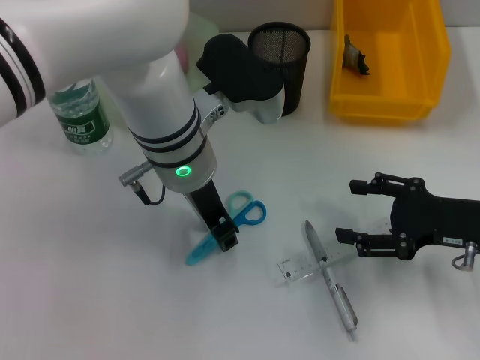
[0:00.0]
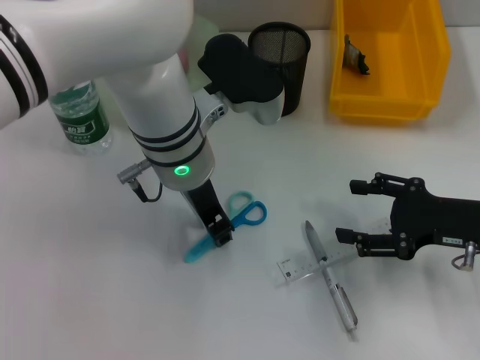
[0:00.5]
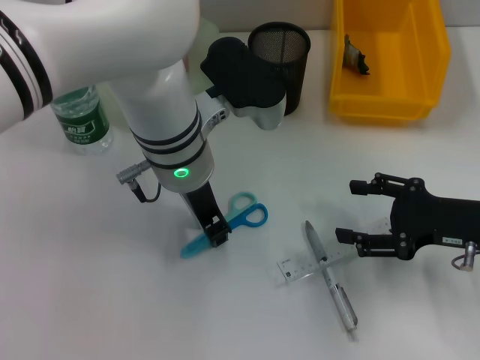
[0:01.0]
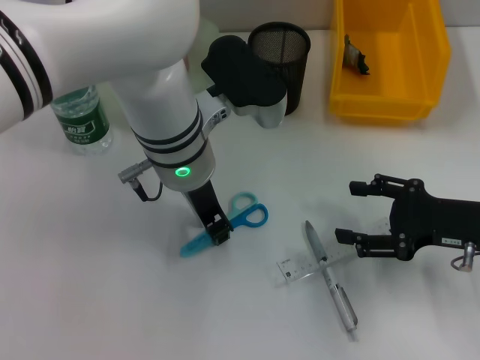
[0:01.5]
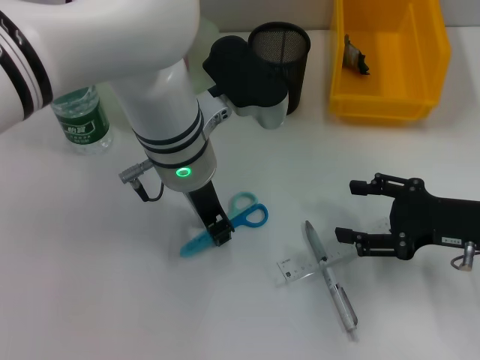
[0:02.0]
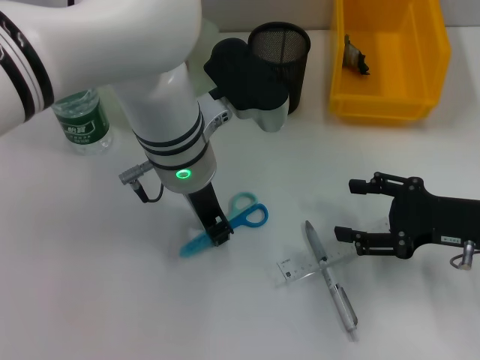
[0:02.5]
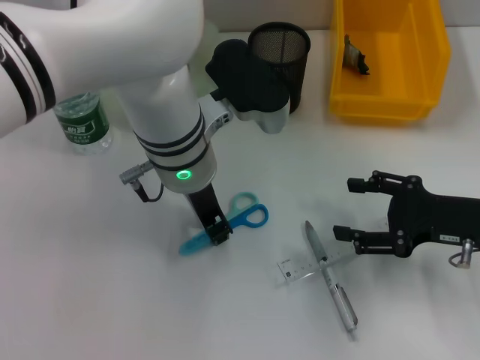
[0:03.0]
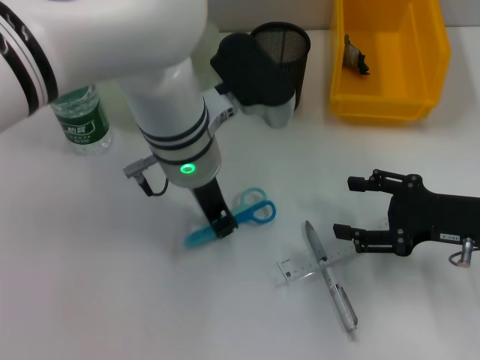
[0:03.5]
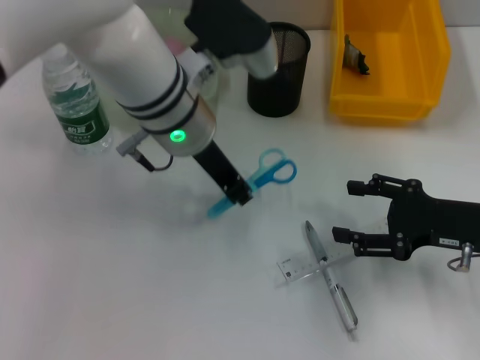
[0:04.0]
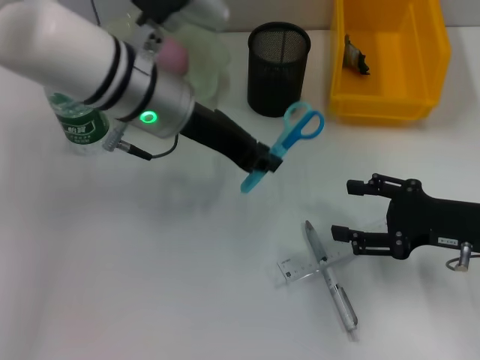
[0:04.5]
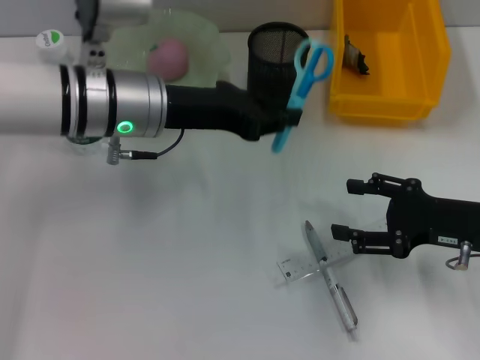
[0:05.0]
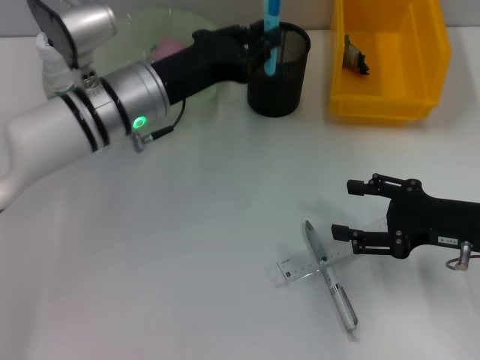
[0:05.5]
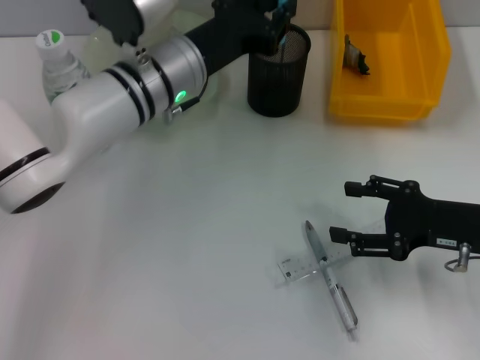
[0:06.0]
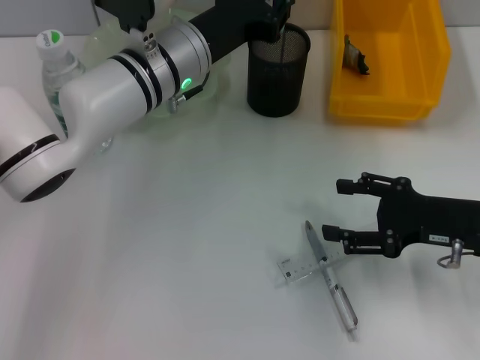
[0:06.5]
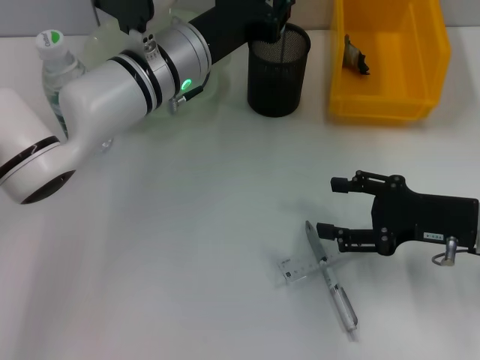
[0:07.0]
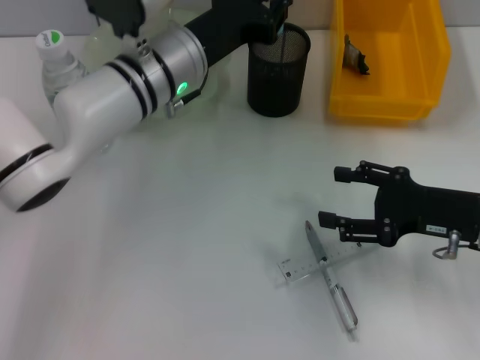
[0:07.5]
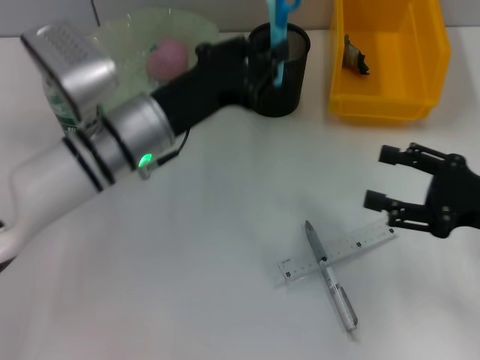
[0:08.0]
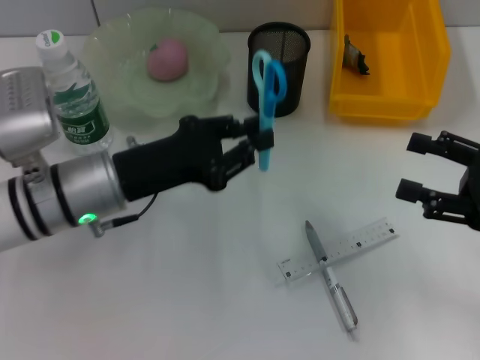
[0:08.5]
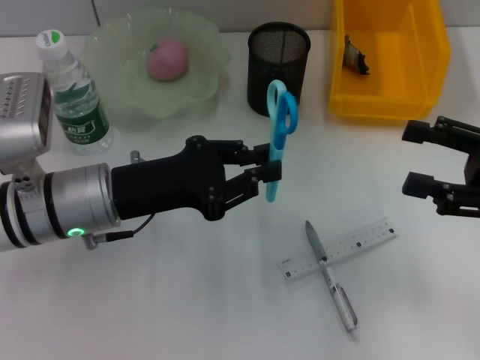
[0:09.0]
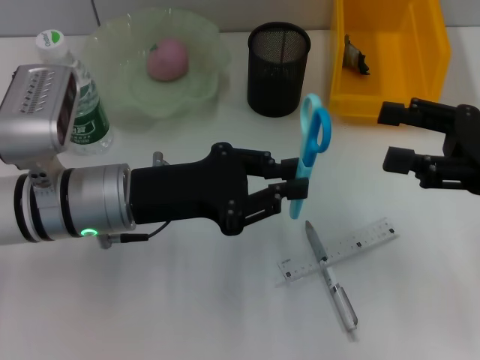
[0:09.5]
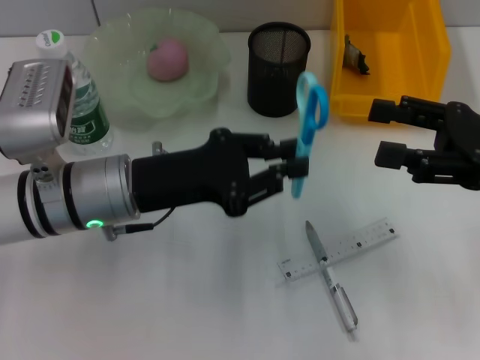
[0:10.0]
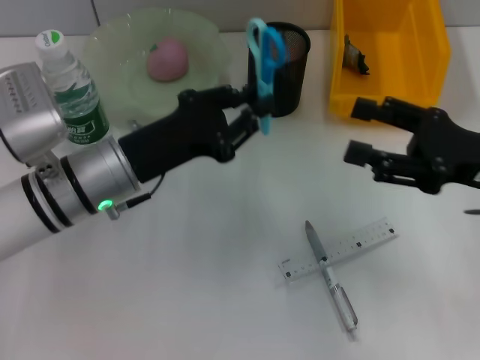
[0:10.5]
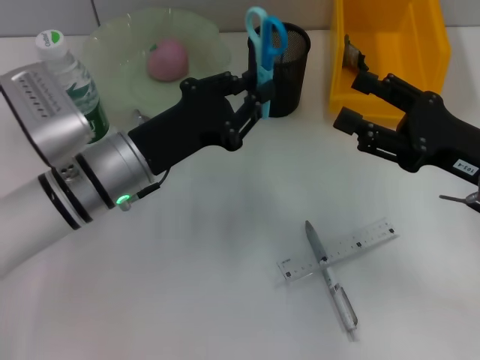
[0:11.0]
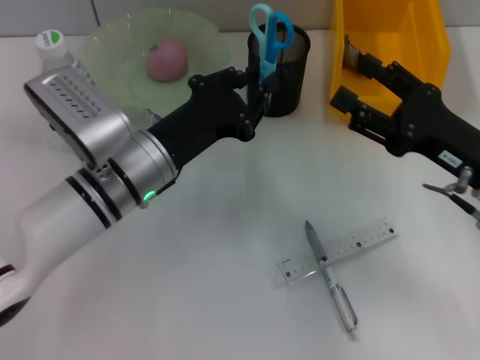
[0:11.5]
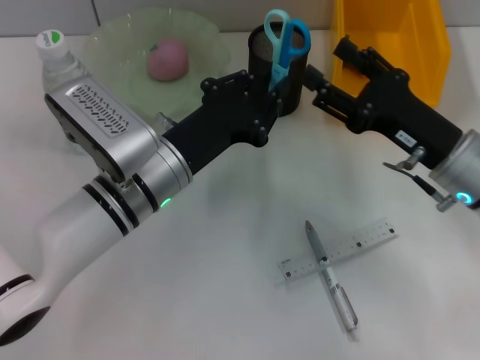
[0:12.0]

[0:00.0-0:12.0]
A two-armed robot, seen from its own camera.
Step, 0:00.0 to 0:03.0: Grab the blue scissors with the left hand.
0:00.0 to 0:02.0: Both grippers stay put.
0:02.0 to 0:04.0: The grippers move only a little.
0:04.0 to 0:06.0: The left gripper moves about 5 cm.
0:06.0 to 0:08.0: The left gripper goes approximately 5 cm backward.
0:08.0 to 0:10.0: The right gripper travels upward by about 5 cm, while the left gripper changes place by approximately 5 cm.
0:10.0 to 0:12.0: The right gripper goes approximately 10 cm to the left and downward, while the left gripper ends up about 5 cm from where it was.

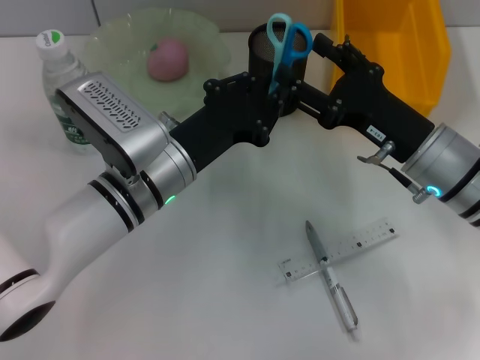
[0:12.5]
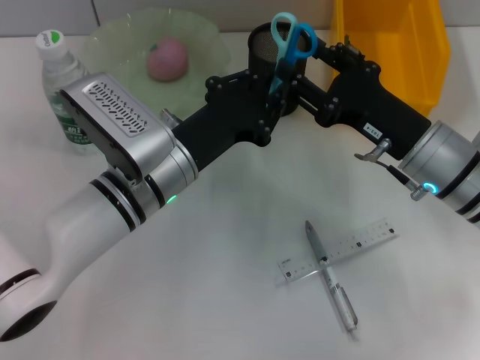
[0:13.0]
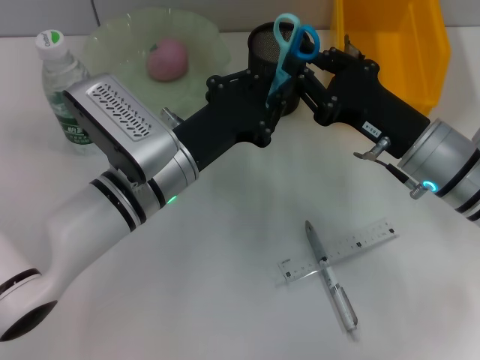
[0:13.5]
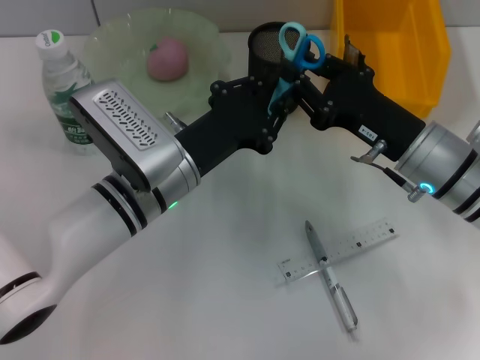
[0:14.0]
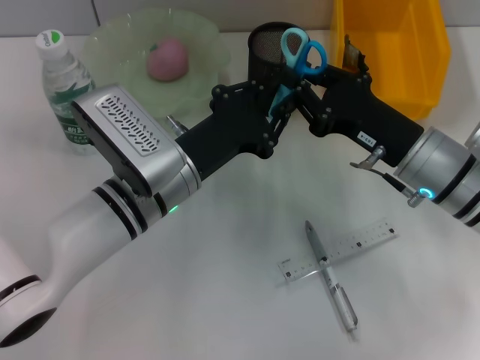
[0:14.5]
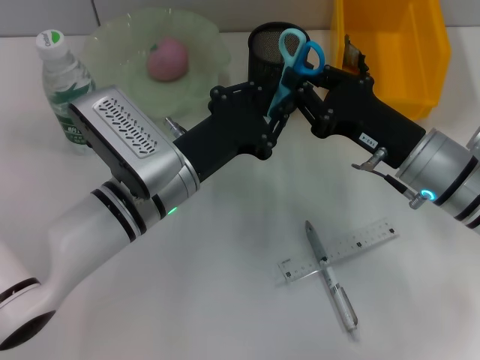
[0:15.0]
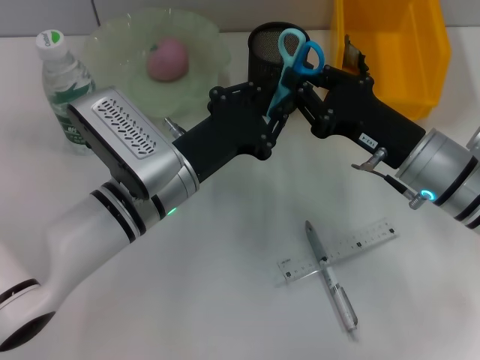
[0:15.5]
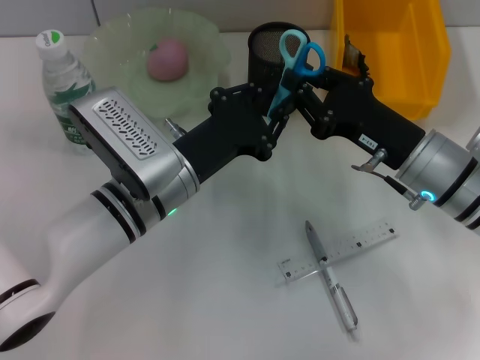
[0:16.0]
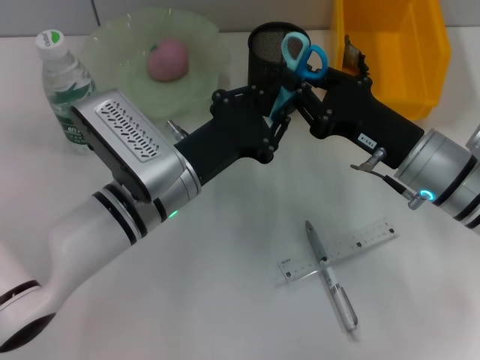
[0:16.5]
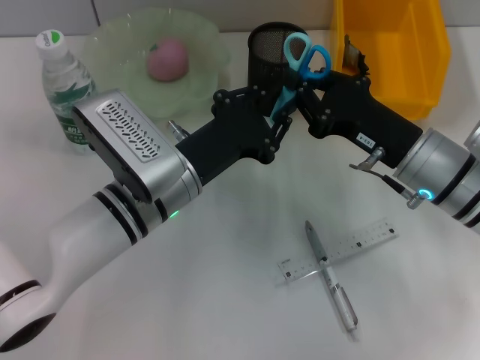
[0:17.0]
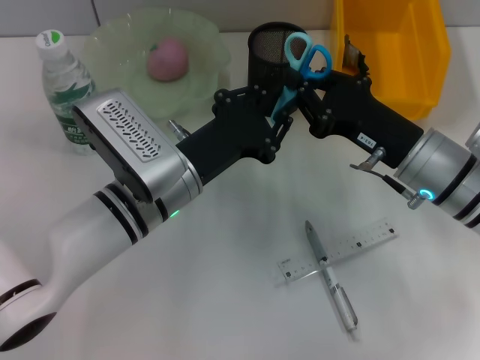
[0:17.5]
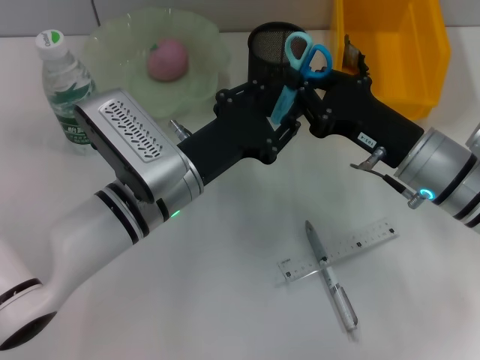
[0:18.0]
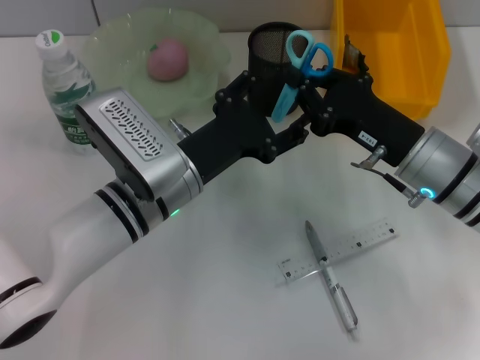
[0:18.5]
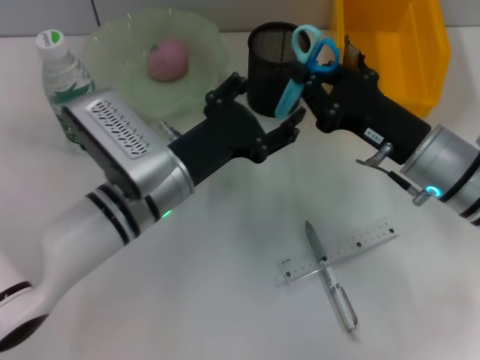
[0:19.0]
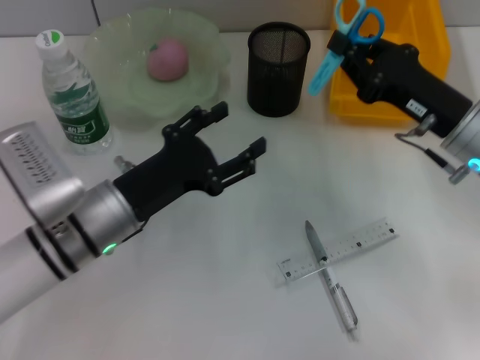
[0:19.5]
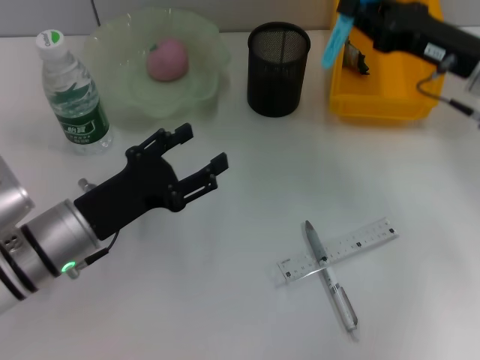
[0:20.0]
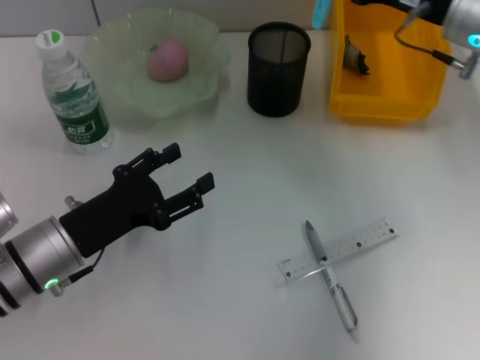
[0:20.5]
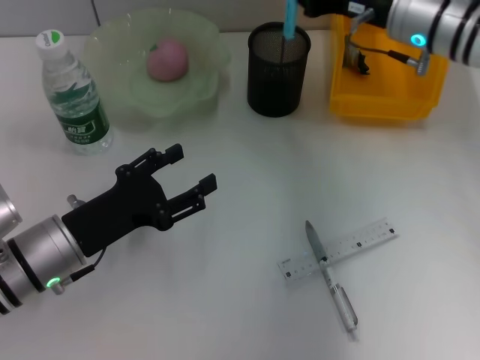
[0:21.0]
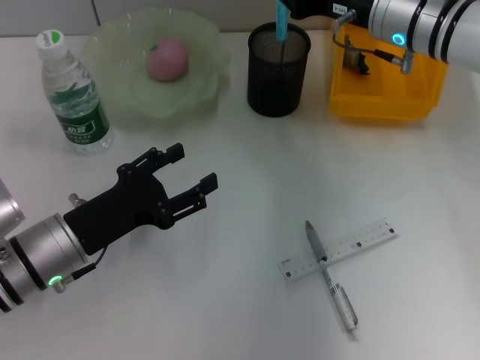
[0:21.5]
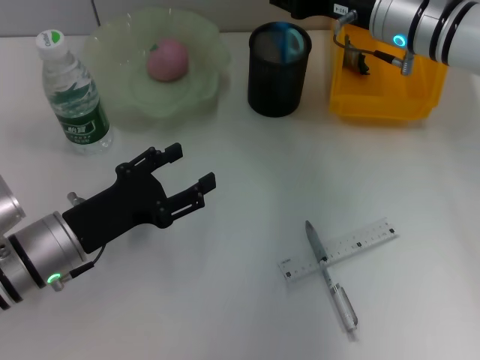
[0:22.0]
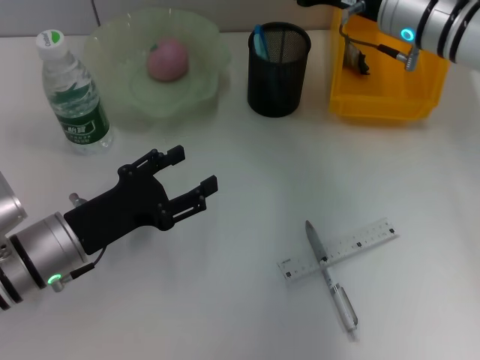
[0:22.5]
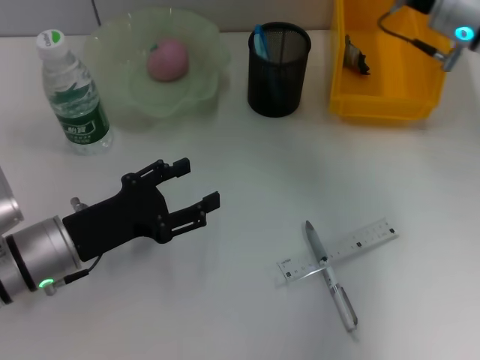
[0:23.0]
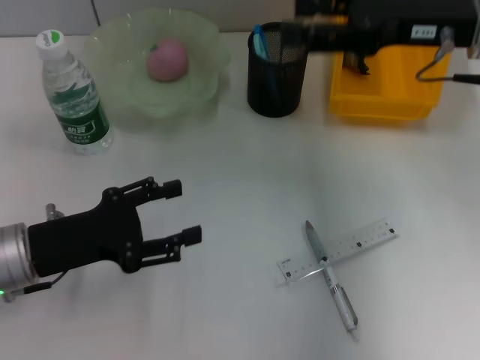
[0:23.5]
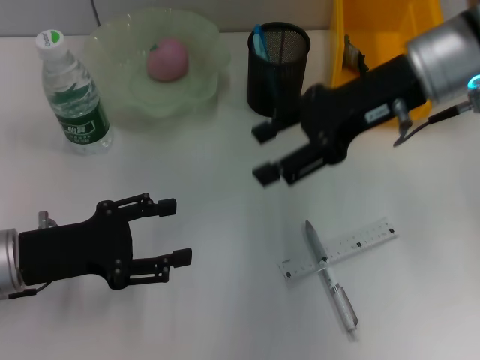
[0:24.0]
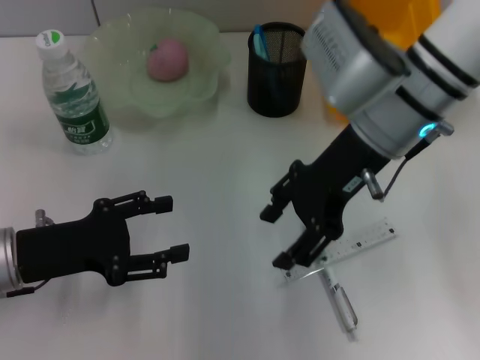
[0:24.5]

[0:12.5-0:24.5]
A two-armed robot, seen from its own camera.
Step, 0:12.5 to 0:18.0: Pass the blue scissors from the left hand to the right hand.
Step, 0:18.5 to 0:22.0: Place the blue scissors into the pen holder with the right hand.
0:12.5 to 0:14.5: The right gripper closes.
0:14.5 to 0:16.5: The two grippers keep their place.
0:16.5 to 0:18.5: The left gripper opens.
0:18.5 to 0:20.5: The left gripper travels to the left and backward by roughly 15 cm; the right gripper moves forward and upward, about 15 cm.
0:20.5 to 0:22.5: The right gripper changes place by about 5 cm, and opens.
0:22.5 to 0:24.5: The right gripper travels backward and to the left by some 10 cm. Meanwhile the left gripper ends up approximately 5 cm from where it was.

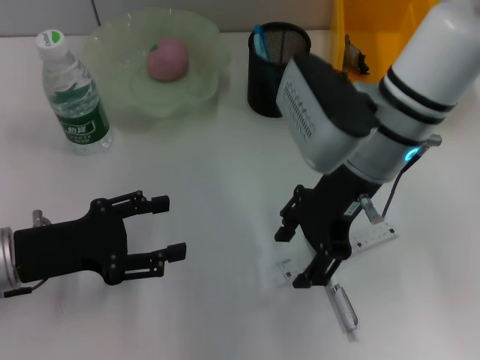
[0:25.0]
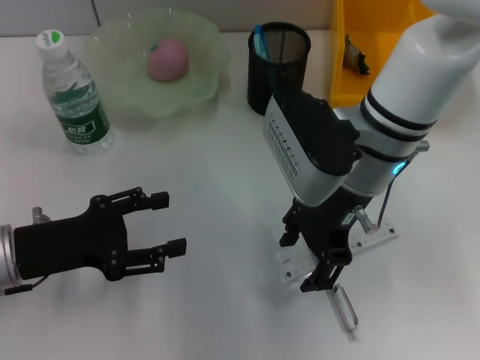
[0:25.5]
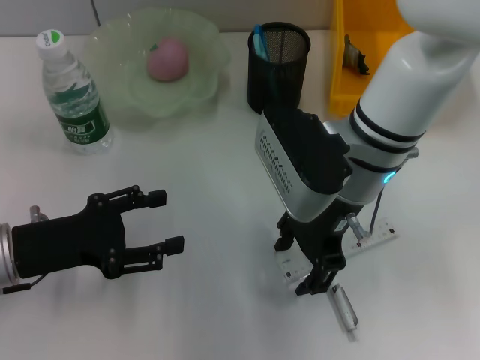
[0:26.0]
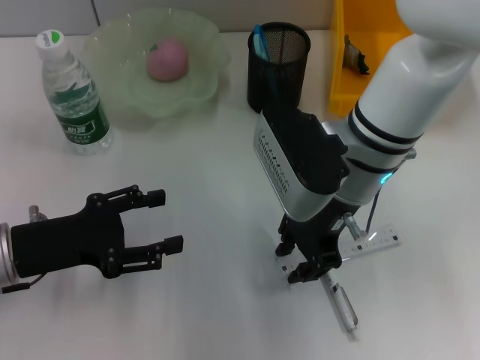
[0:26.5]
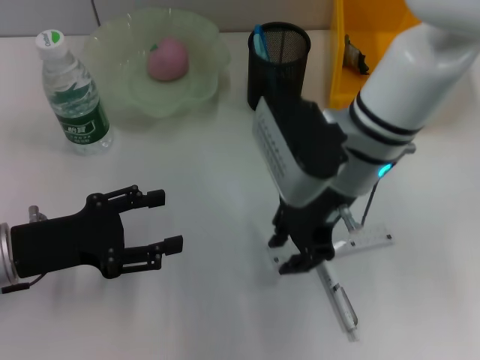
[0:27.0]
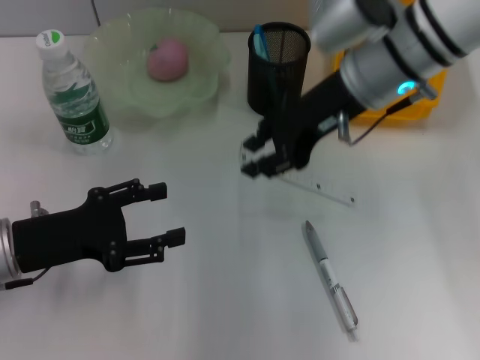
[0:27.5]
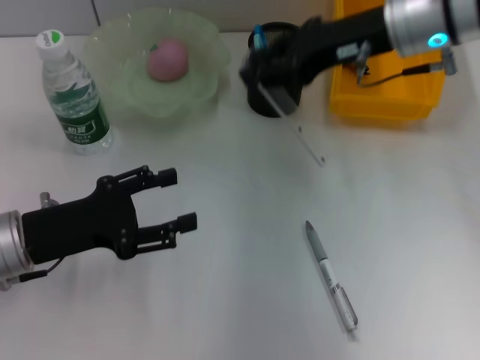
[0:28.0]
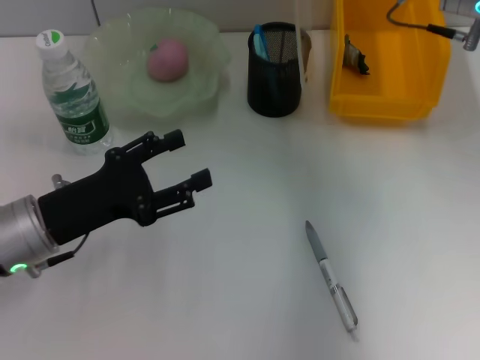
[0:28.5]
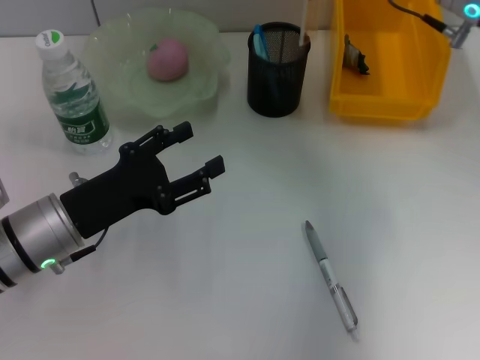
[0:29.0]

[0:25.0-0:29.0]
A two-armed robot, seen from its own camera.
0:25.0 to 0:27.0: The right gripper closes up.
0:27.0 to 0:29.0: The right gripper shifts roughly 15 cm to the right and forward. The left gripper goes roughly 5 cm to the right.
